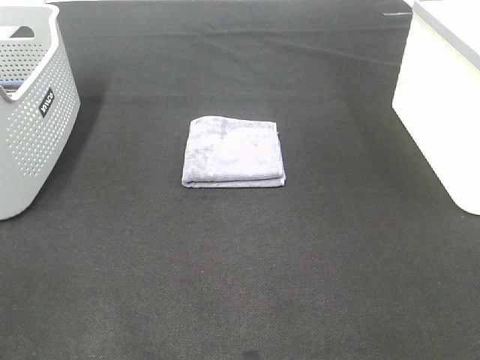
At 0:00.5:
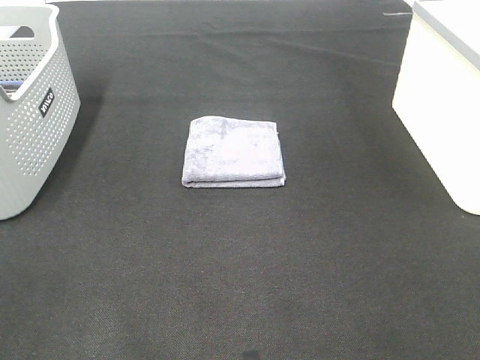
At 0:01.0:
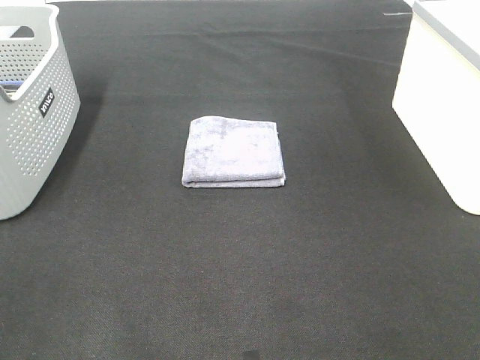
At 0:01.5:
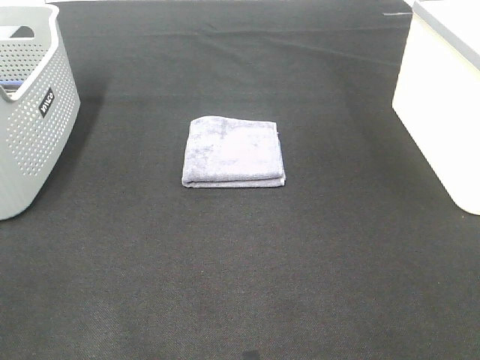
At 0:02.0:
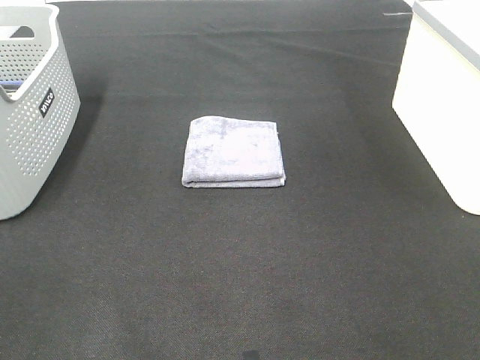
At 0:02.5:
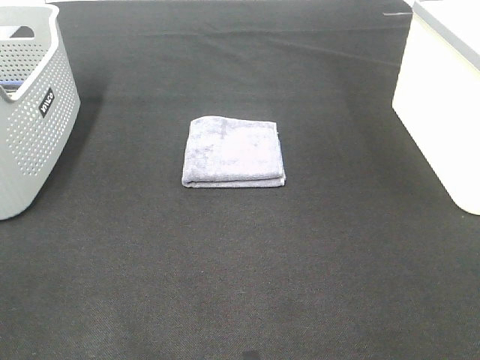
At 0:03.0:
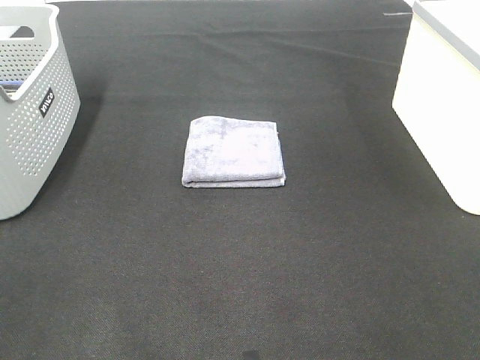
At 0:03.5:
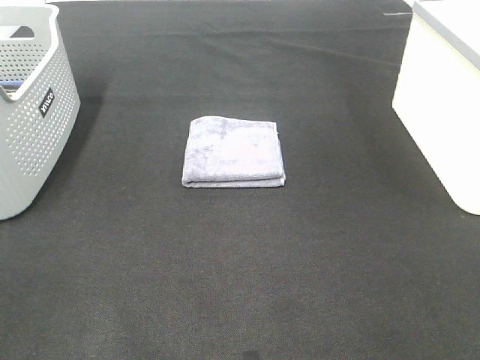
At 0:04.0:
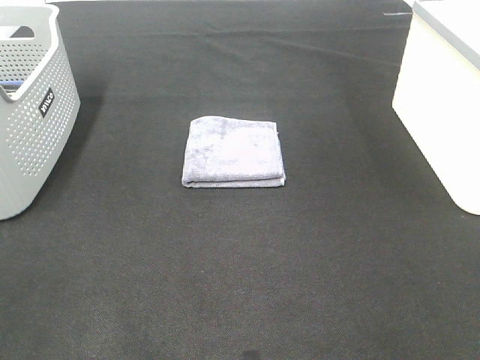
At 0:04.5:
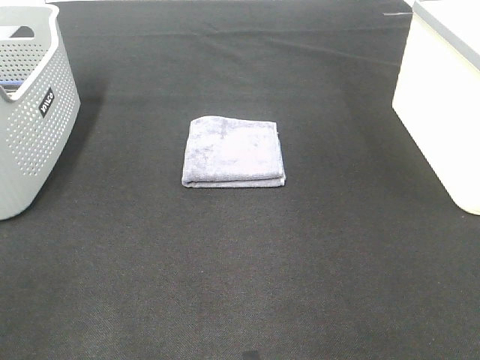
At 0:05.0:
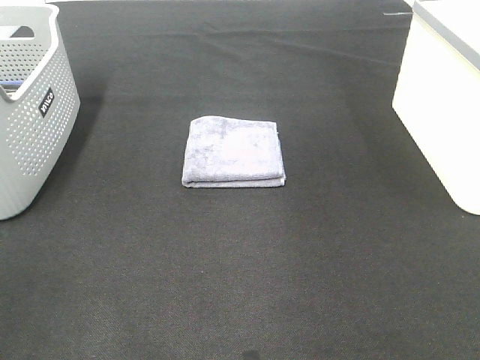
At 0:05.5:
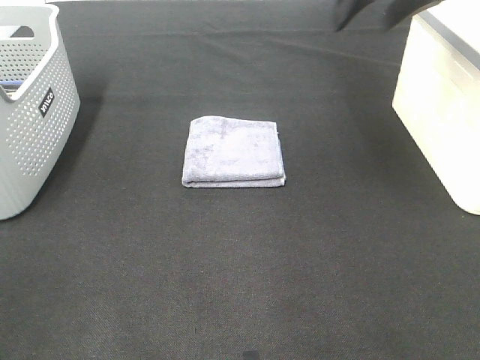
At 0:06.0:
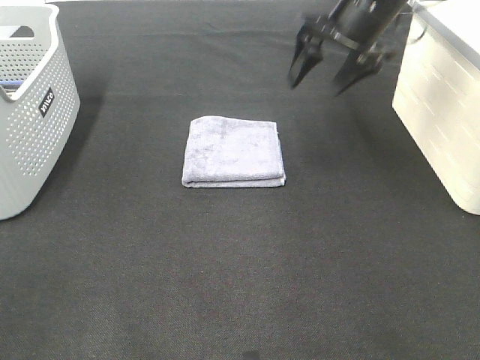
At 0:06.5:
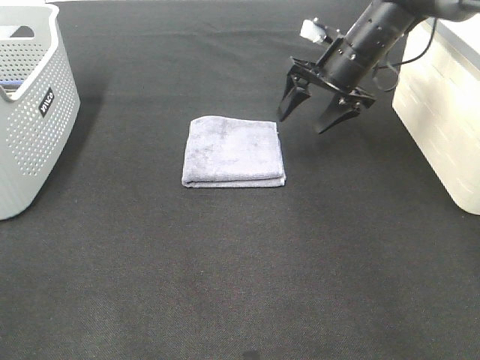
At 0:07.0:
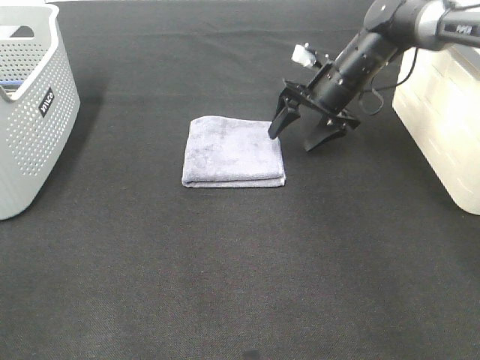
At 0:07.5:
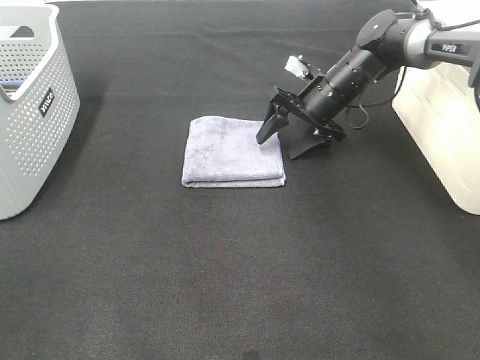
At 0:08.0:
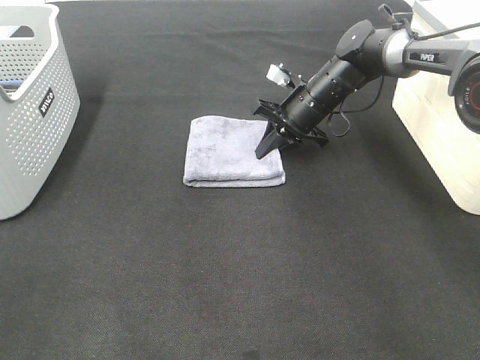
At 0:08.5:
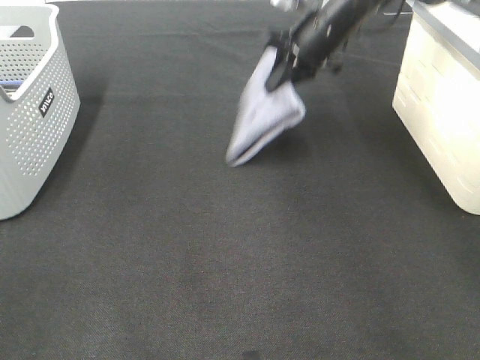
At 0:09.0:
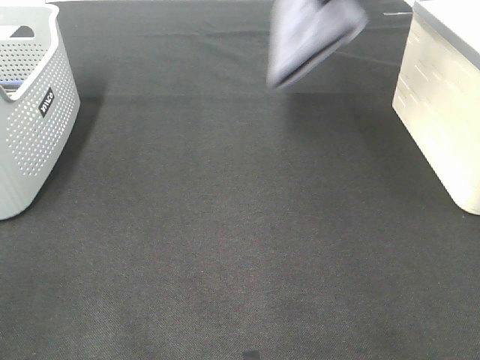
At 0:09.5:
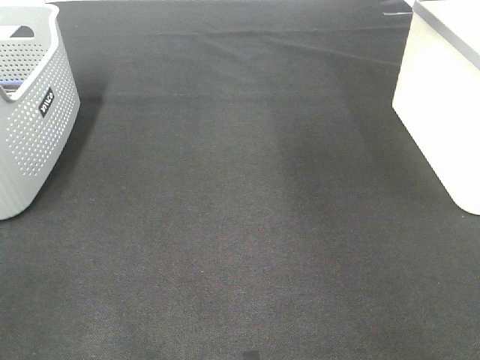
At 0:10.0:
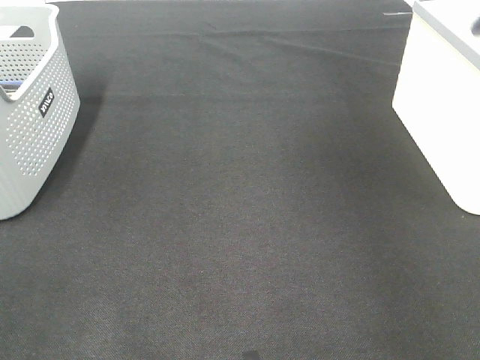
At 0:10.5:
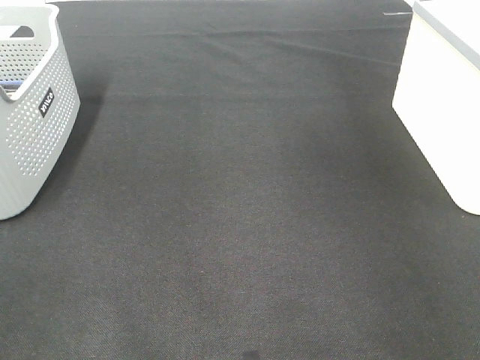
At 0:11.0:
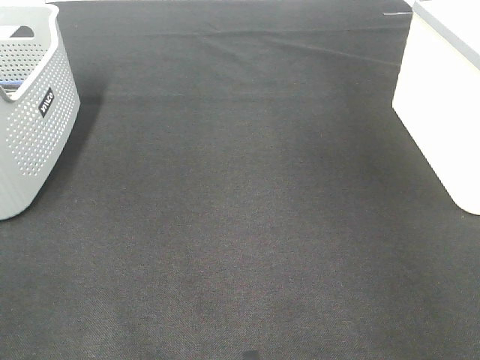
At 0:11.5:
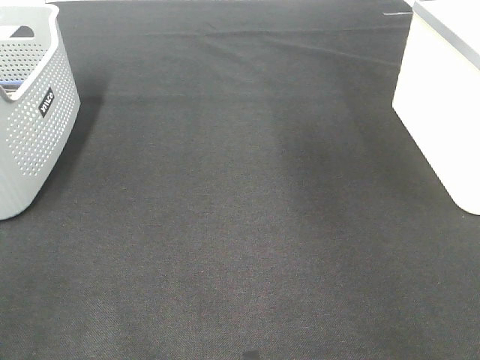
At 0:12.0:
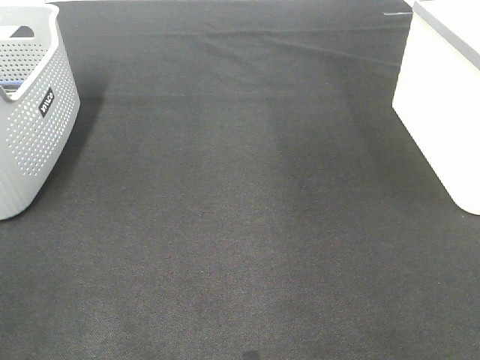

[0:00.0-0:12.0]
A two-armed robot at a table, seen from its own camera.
Step, 0:00.0 to 0:08.0: Right hand: grab the folded grey towel.
Step, 0:08.5 to 0:10.5: Right hand: place the grey towel in right basket.
0:00.0 to 0:02.0: Both grippers stay put.
0:04.0 to 0:06.0: The right gripper moves forward, roughly 40 cm.
0:06.0 to 0:08.0: The right gripper goes approximately 15 cm downward, and closes up.
0:08.0 to 0:10.0: The right gripper travels upward and to the right by some 40 cm.

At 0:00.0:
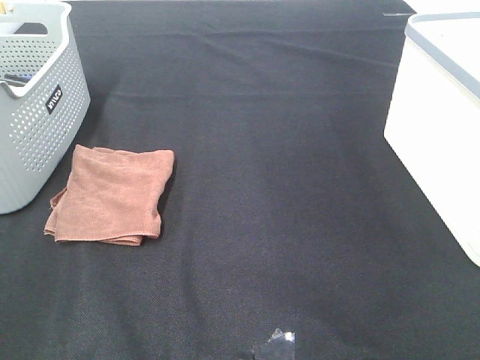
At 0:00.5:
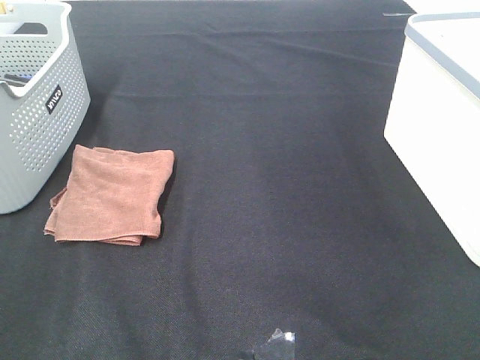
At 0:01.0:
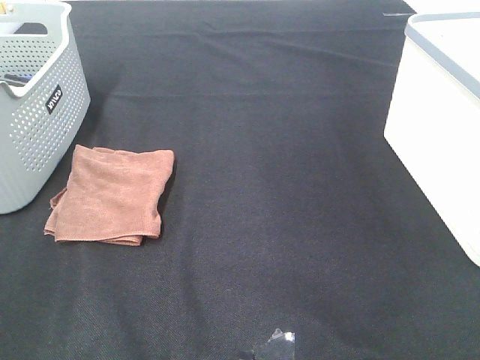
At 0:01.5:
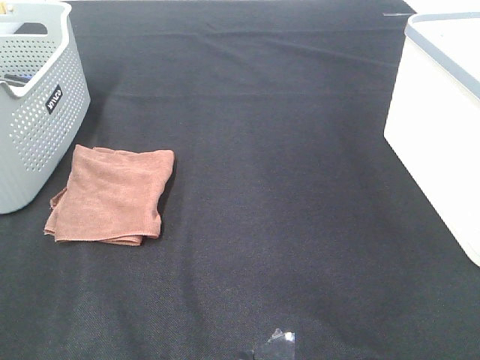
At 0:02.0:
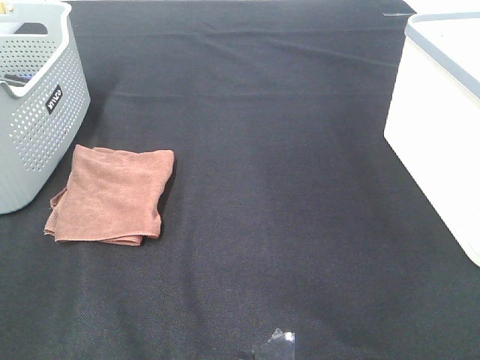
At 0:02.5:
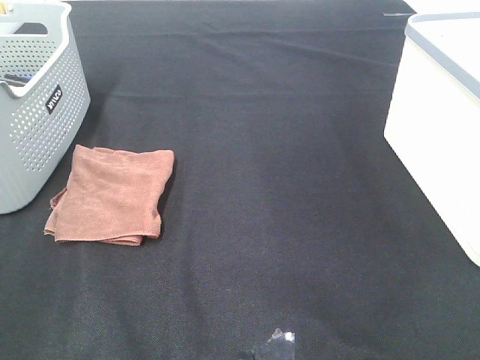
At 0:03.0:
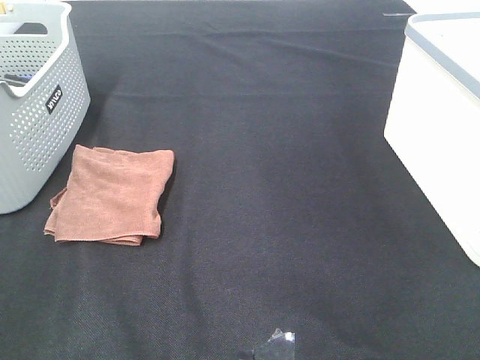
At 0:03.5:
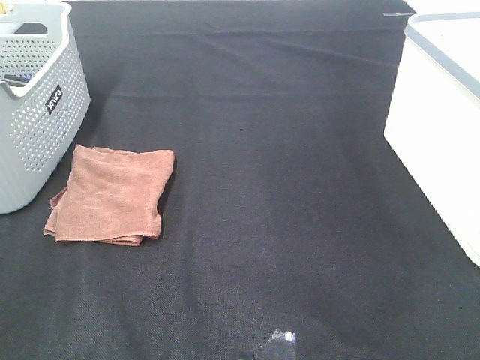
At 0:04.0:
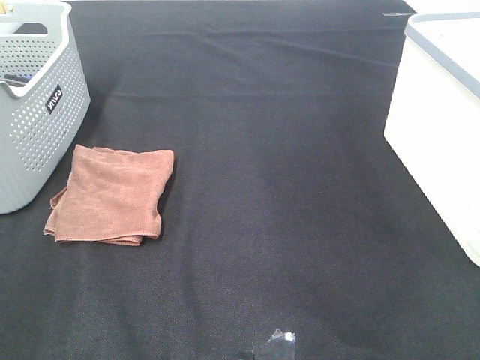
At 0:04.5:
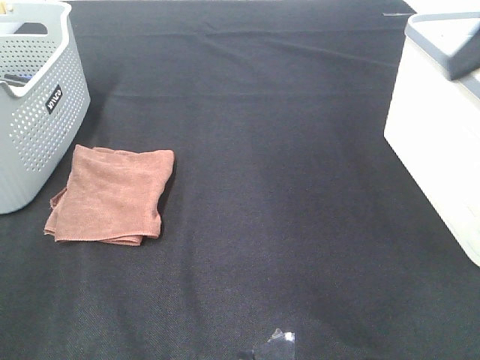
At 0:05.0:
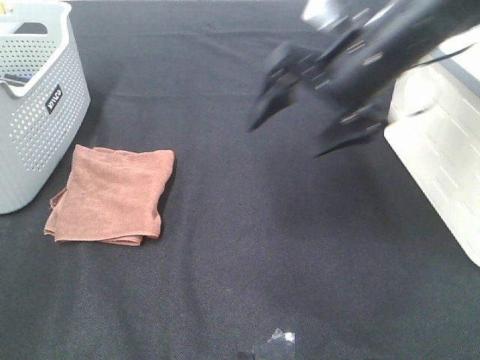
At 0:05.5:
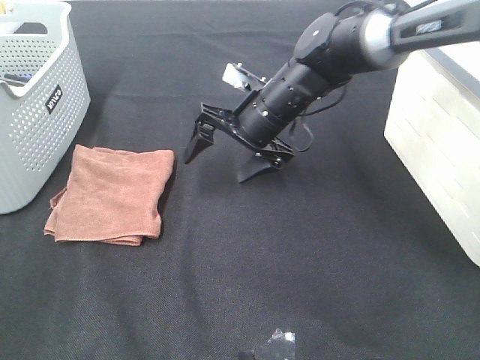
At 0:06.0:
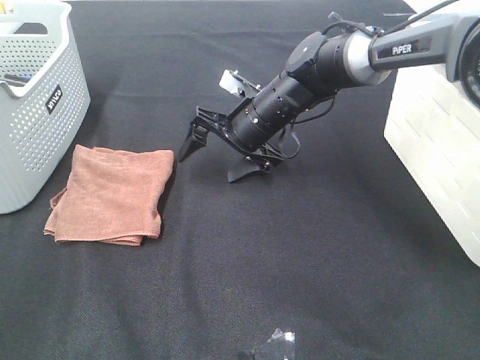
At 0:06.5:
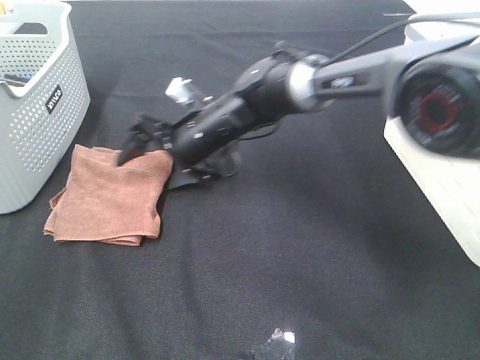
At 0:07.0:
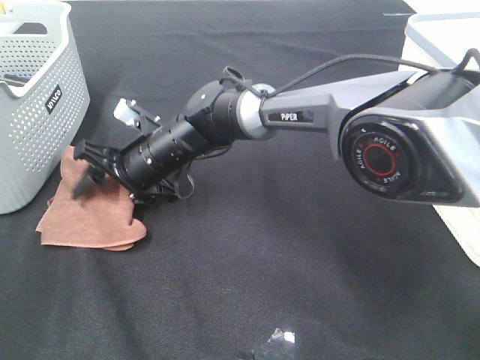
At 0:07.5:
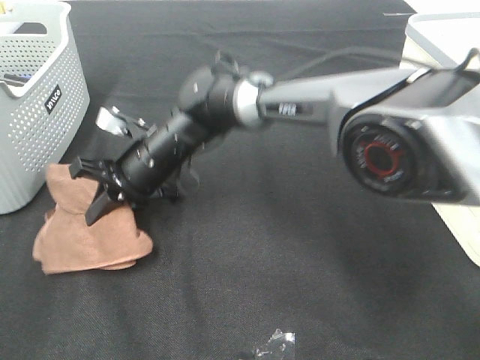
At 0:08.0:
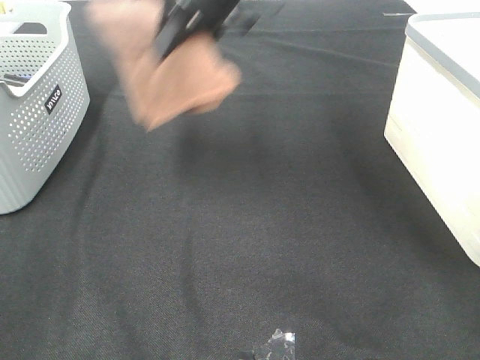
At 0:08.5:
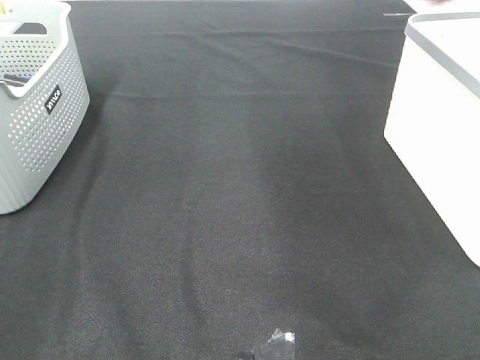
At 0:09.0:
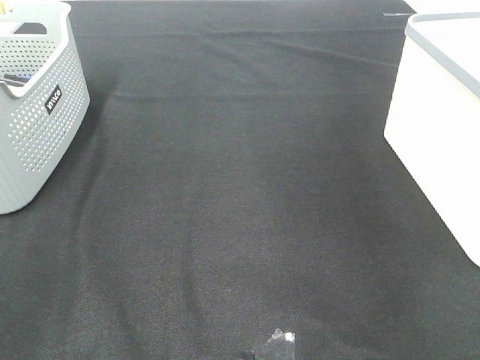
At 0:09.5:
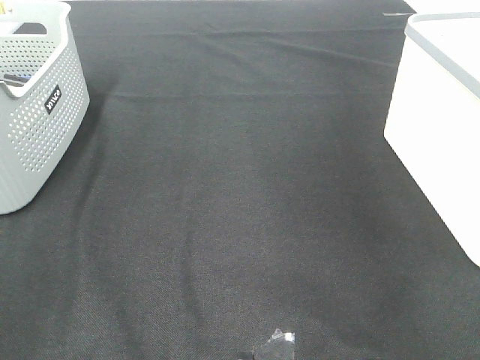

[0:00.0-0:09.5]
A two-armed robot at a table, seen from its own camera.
Step, 0:00.0 to 0:07.0: Right hand: grab the folded brown towel.
Step, 0:07.5 to 0:09.5: Right hand: place the brown towel in right basket.
0:00.0 to 0:02.0: The two grippers keep their place.
0:04.0 to 0:05.5: The right gripper moves forward, to the left and downward, approximately 50 cm.
0:05.5 to 0:07.5: The right gripper travels to the left by roughly 15 cm, and closes.
0:07.5 to 0:09.5: The right gripper moves to the right and upward, about 50 cm, and opens up.

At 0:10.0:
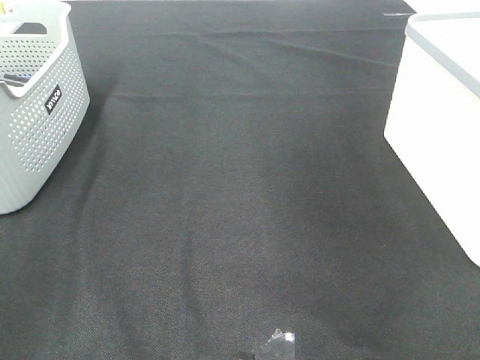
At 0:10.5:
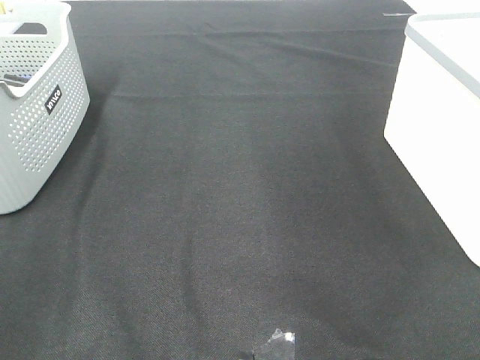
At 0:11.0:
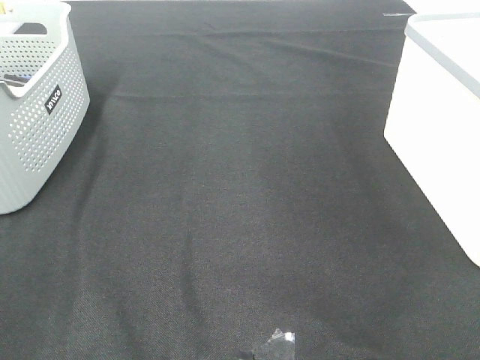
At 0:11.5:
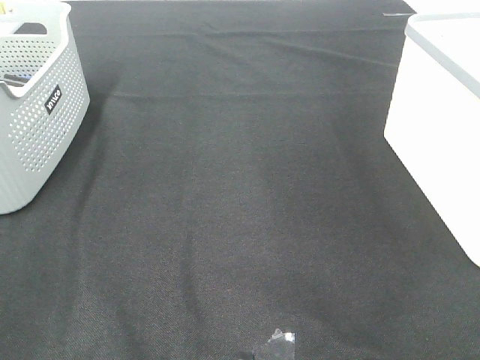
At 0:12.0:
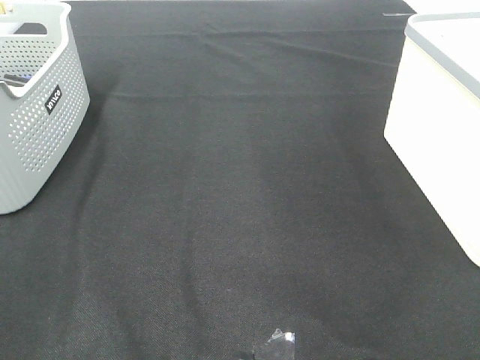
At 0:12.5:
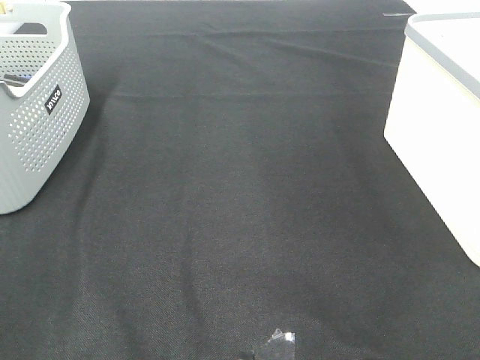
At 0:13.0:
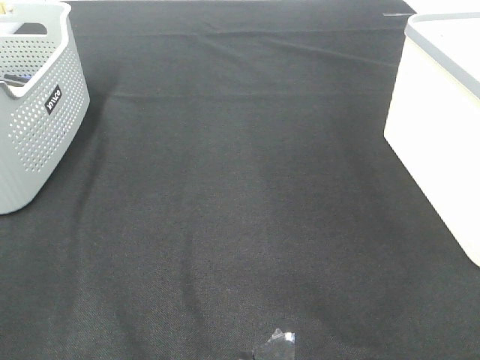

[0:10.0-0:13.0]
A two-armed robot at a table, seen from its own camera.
0:11.5 to 0:13.0: Both grippers stay put.

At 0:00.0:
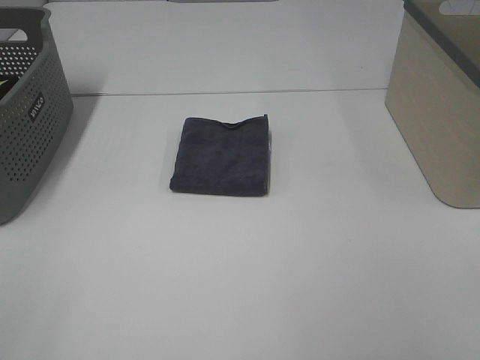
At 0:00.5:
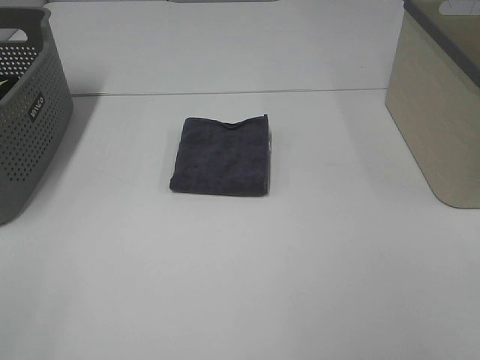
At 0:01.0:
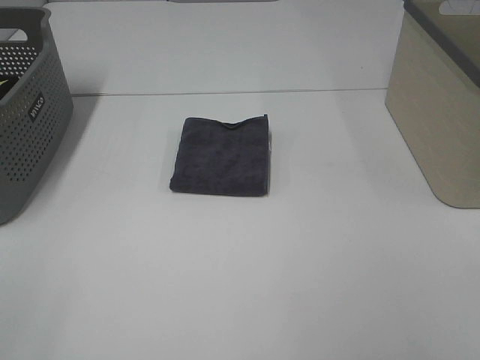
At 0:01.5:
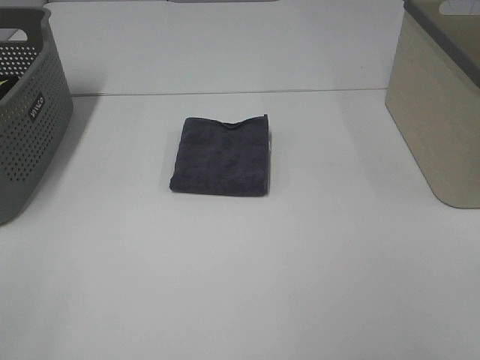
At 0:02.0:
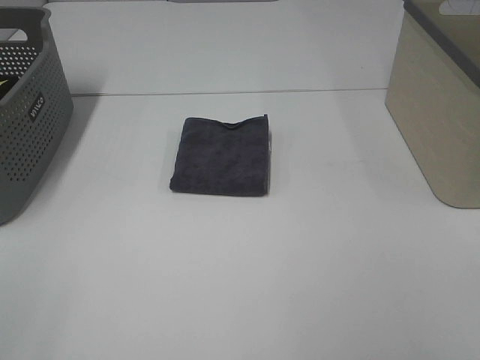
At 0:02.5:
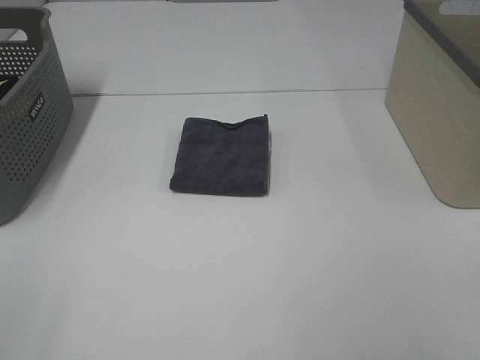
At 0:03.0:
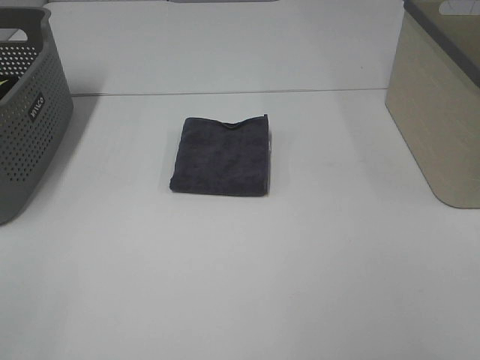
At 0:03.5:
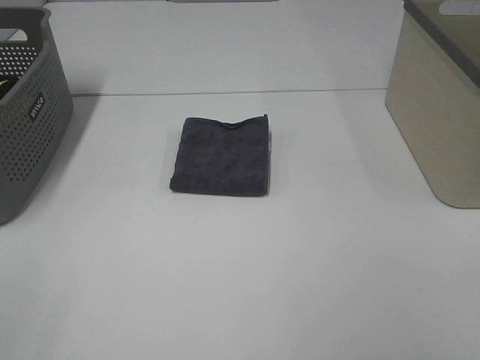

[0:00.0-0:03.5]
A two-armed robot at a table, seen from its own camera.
0:00.0 to 0:03.5: The two grippers keep their place.
